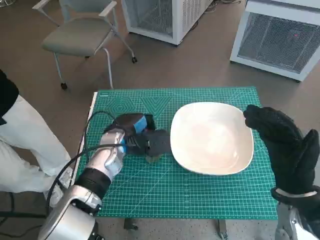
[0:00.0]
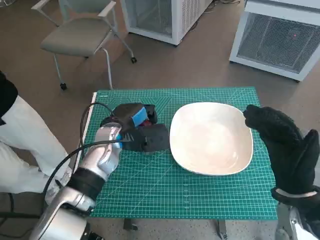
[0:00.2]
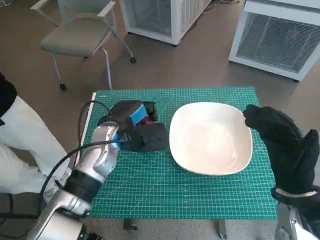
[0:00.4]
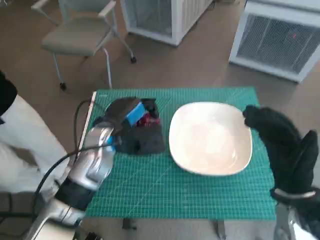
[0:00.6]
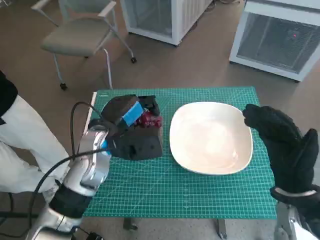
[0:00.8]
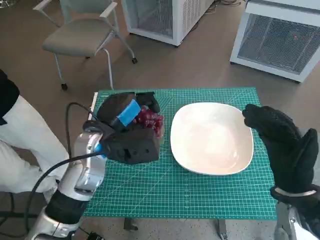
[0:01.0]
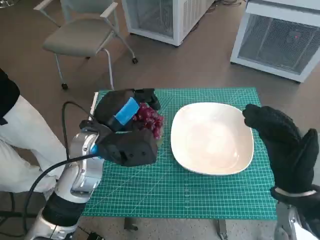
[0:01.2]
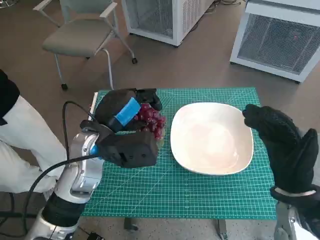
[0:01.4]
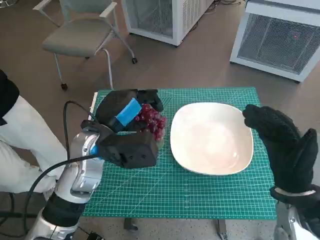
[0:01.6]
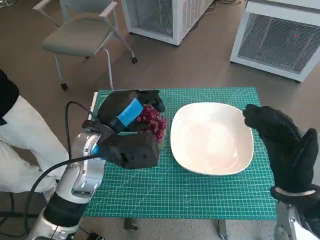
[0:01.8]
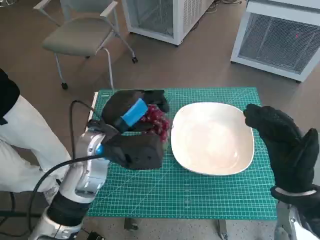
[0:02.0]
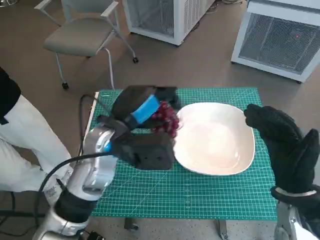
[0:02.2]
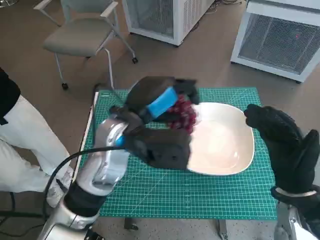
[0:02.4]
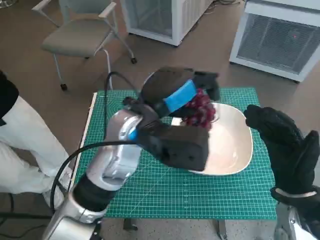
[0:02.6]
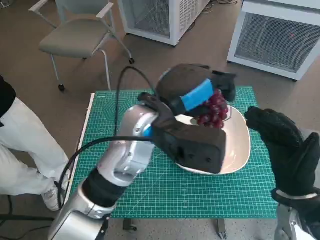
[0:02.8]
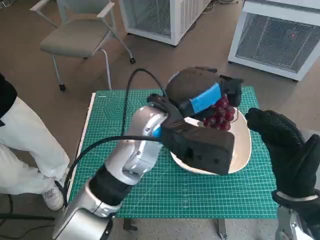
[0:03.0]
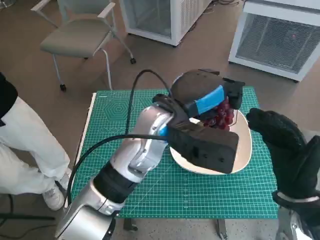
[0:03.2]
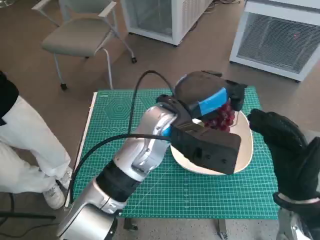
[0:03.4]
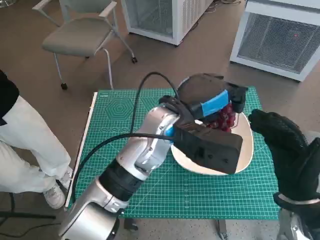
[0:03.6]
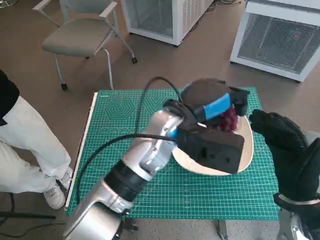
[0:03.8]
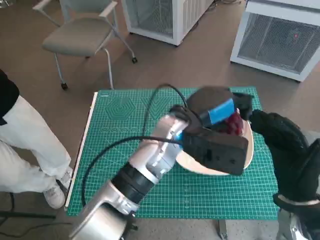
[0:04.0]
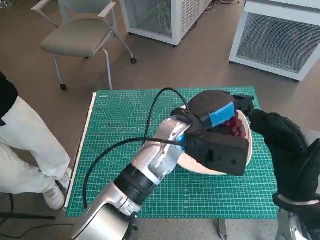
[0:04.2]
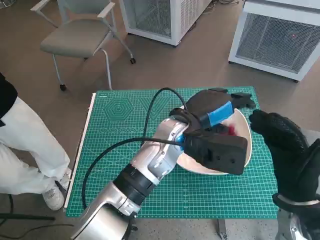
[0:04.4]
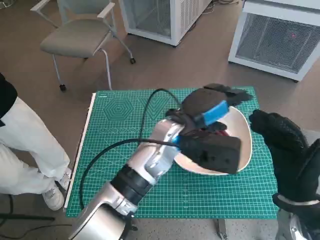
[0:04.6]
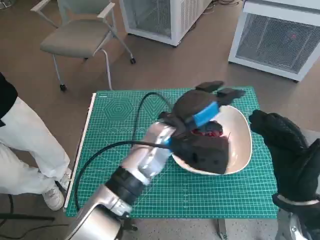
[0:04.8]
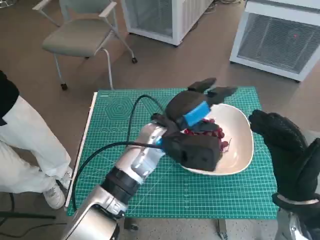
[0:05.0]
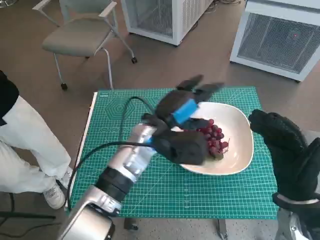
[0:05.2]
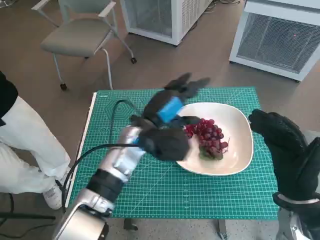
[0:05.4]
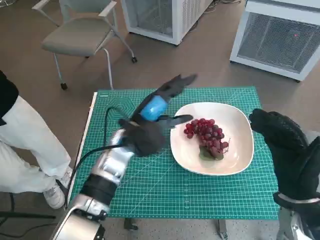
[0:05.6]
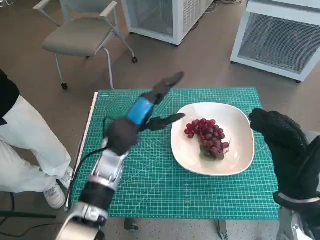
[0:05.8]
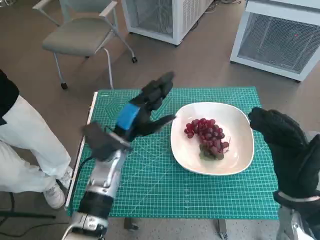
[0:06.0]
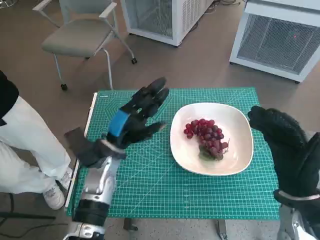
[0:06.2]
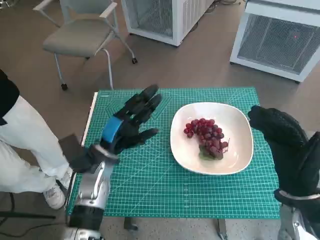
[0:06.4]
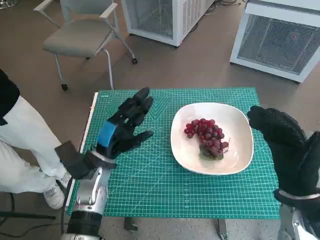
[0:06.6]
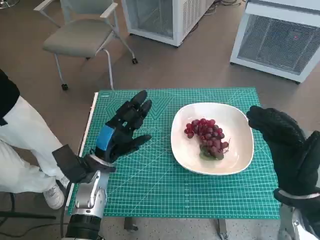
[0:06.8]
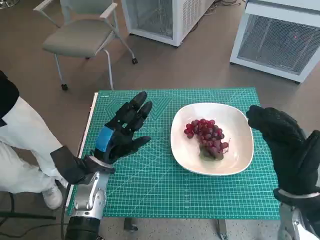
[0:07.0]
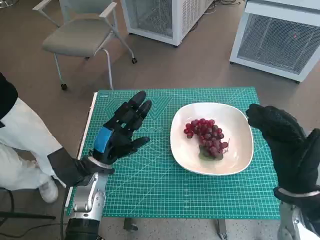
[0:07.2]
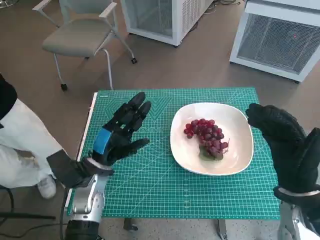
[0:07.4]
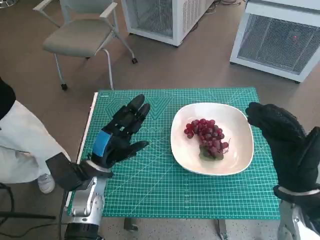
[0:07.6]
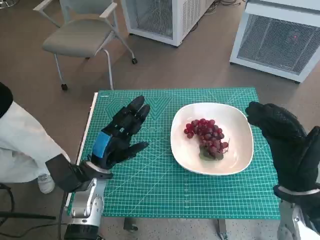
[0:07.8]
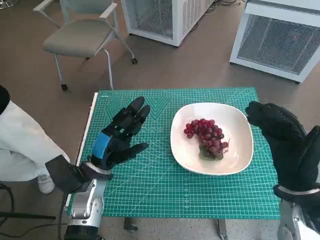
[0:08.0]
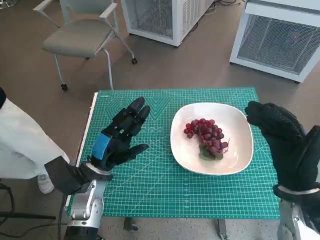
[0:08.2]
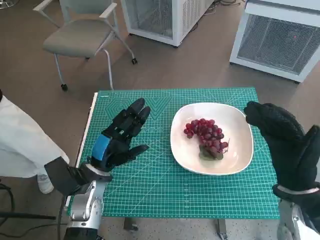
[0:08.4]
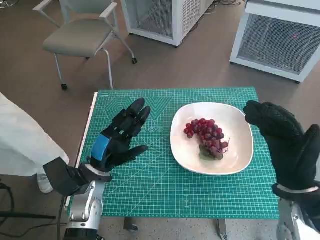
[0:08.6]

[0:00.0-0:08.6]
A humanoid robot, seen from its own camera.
Task of the whole recording: Pick up the grapes and put them on the plate.
Step, 0:00.0 to 0:04.6: Place the grapes in the plate with left hand.
0:00.0 to 0:01.4: The left hand moves upward and backward, roughly 10 cm.
0:01.4 to 0:02.8: The left hand travels to the right and upward by roughly 10 cm.
0:02.8 to 0:04.4: The left hand goes some 5 cm downward and to the right.
0:04.4 to 0:05.8: The left hand travels to the left and downward by some 15 cm.
0:05.8 to 0:07.2: The left hand shifts some 10 cm to the left and downward.
0:07.2 to 0:08.6: The hands stay close to where they were, moving slightly.

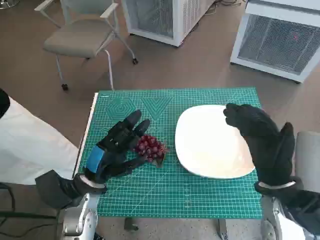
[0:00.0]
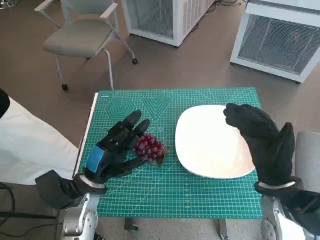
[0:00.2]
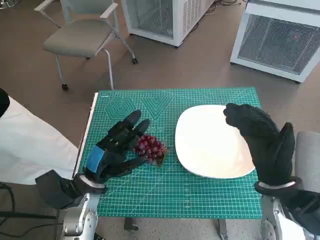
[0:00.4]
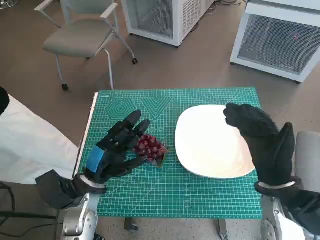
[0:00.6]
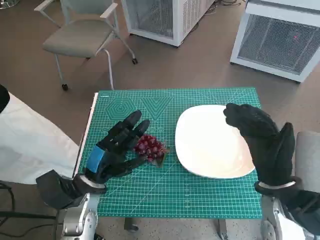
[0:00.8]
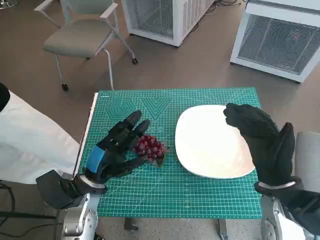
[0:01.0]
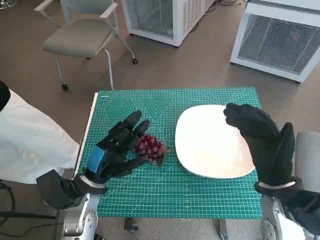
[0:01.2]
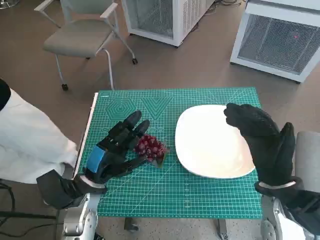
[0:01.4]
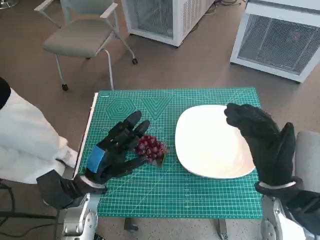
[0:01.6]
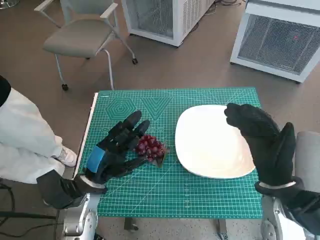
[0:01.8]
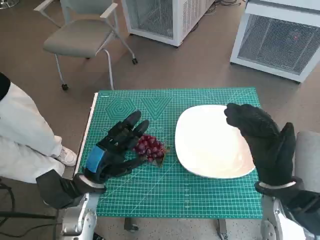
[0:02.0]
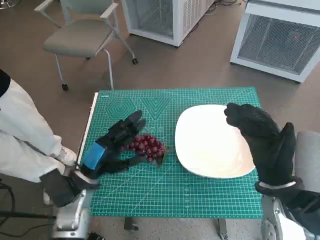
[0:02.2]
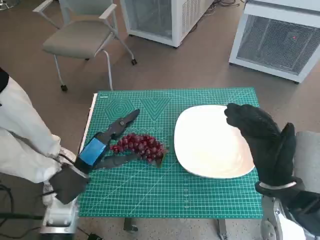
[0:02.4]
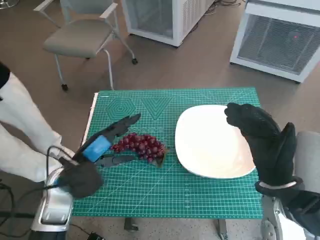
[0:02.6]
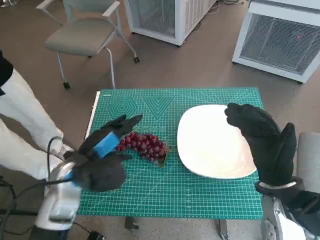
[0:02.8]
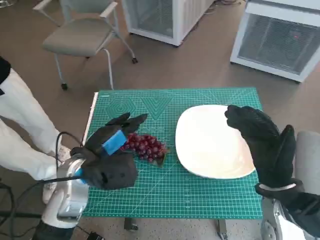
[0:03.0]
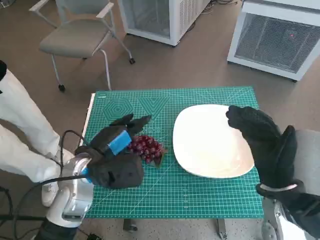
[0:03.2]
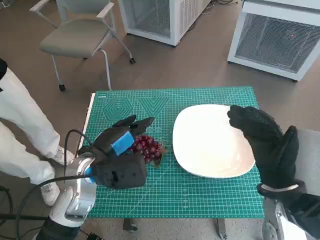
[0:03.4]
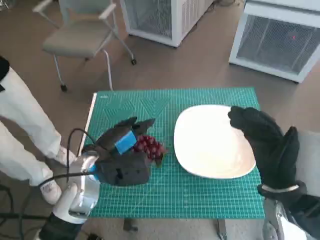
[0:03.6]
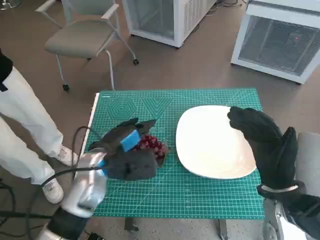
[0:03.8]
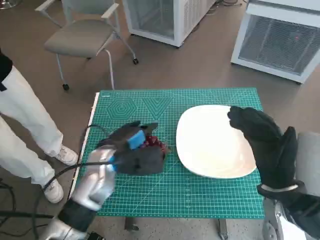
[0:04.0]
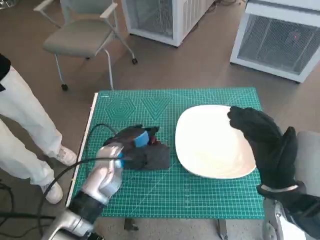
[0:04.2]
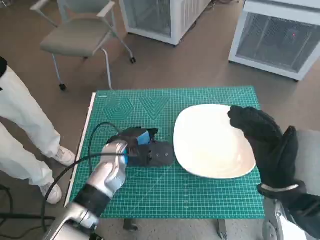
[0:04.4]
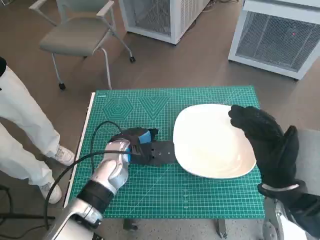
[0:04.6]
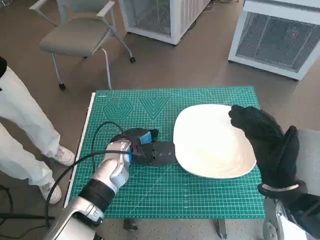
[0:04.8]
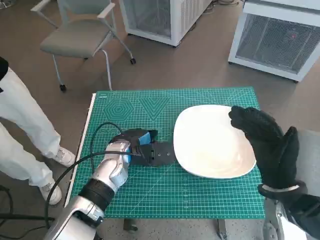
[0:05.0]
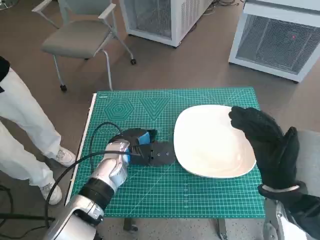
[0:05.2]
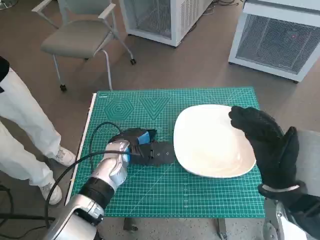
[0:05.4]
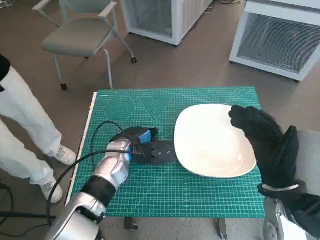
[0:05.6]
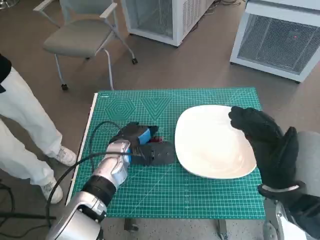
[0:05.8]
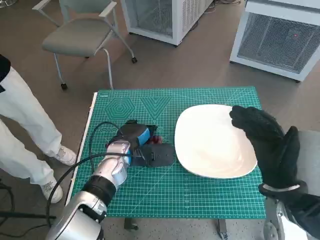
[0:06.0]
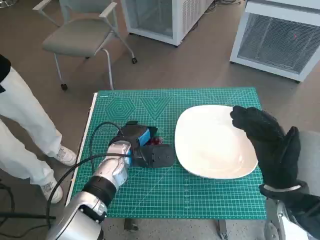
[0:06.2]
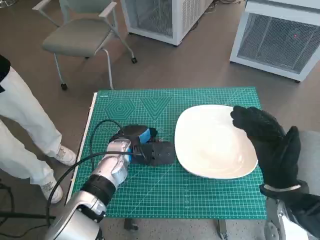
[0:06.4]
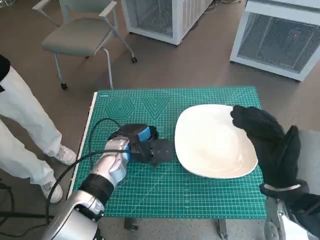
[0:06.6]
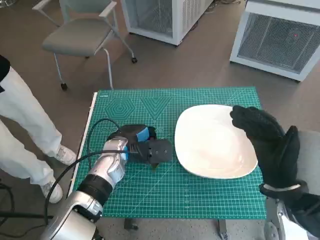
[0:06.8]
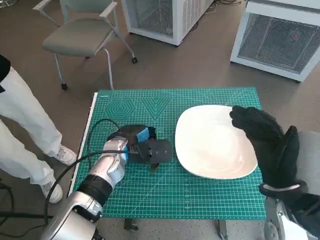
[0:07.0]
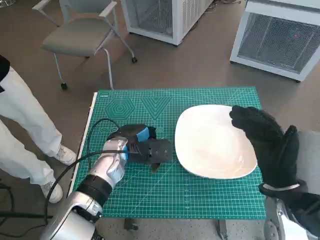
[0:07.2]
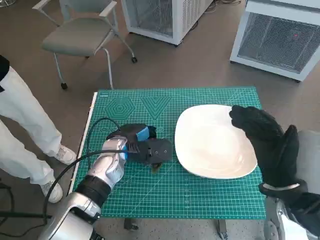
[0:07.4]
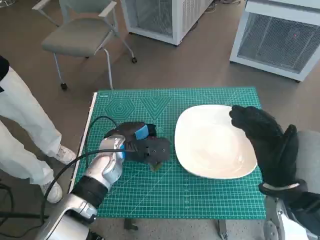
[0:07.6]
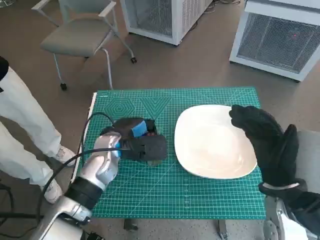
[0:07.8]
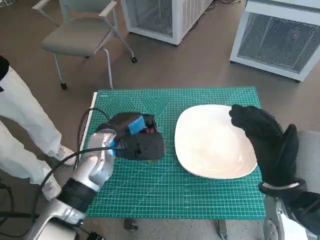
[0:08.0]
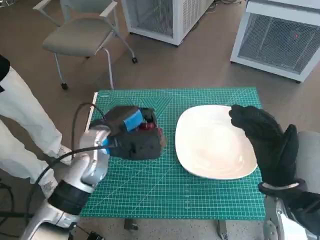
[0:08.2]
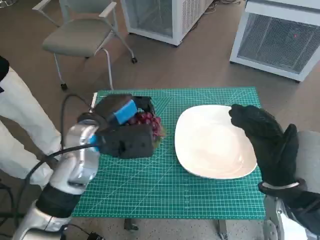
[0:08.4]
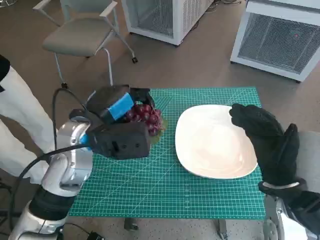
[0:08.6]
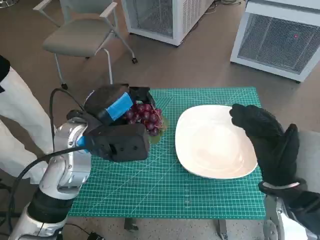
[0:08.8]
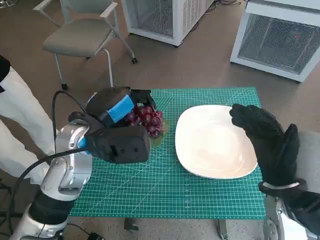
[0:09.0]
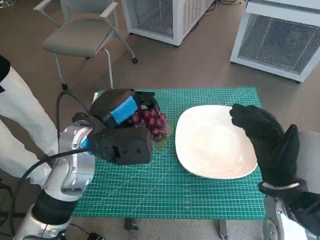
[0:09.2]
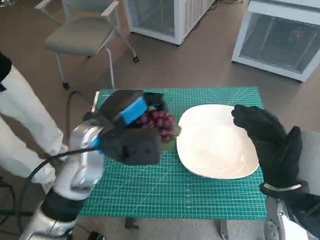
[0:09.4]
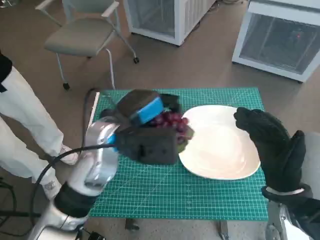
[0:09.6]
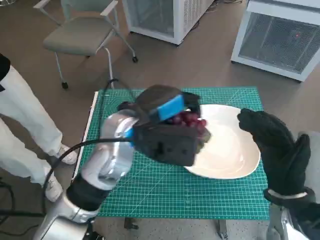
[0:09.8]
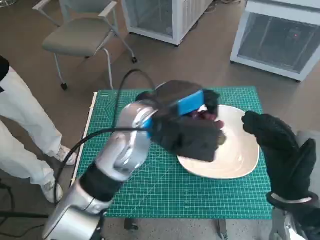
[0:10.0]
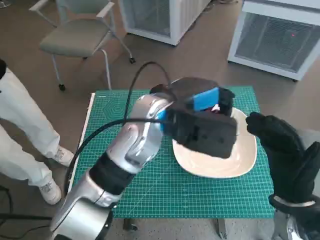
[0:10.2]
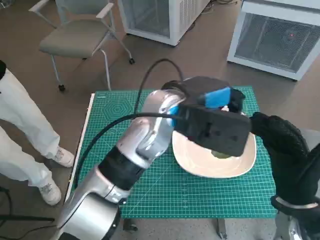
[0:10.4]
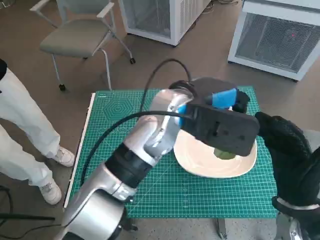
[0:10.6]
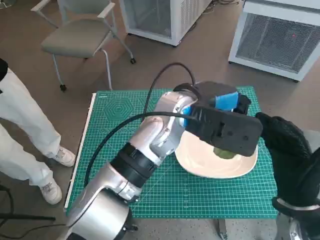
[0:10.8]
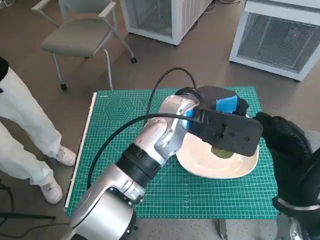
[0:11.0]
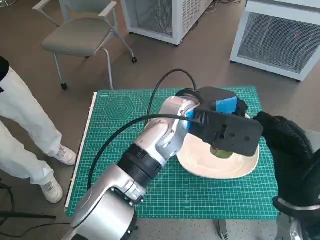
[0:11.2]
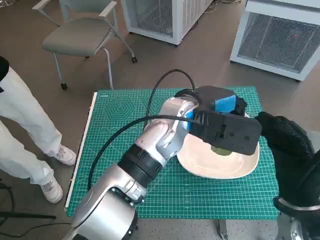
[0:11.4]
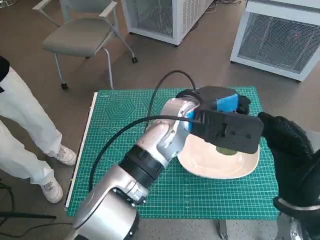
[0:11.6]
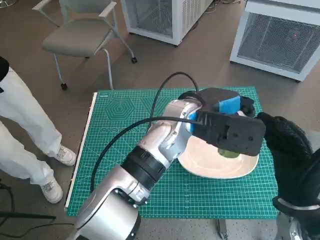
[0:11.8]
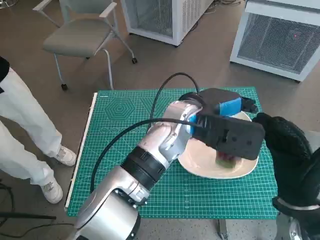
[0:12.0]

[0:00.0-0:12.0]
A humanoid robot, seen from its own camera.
Task of the whole recording: Pick up the grapes and put them on the plate.
Step, 0:00.0 to 0:05.8: Grasp the grapes with left hand.
0:01.6 to 0:03.0: The left hand shifts approximately 5 cm upward.
0:03.0 to 0:04.4: The left hand goes approximately 10 cm forward and to the right.
0:04.4 to 0:07.6: The hands make only small movements.
0:07.6 to 0:09.0: The left hand heads upward, covering about 10 cm.
0:09.0 to 0:10.4: The left hand goes some 15 cm to the right.

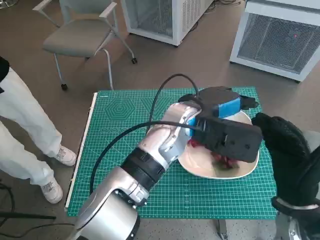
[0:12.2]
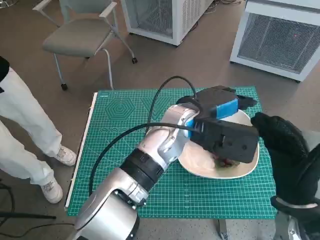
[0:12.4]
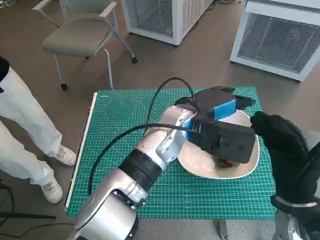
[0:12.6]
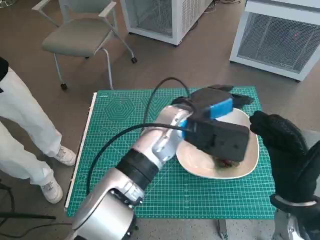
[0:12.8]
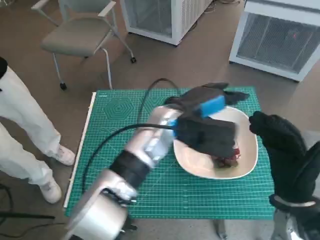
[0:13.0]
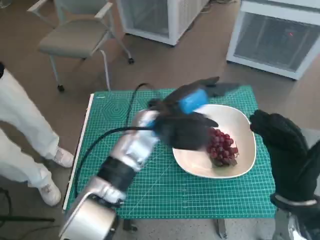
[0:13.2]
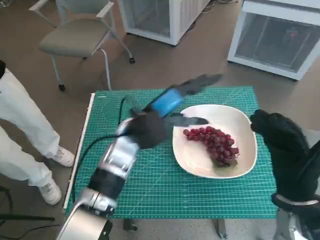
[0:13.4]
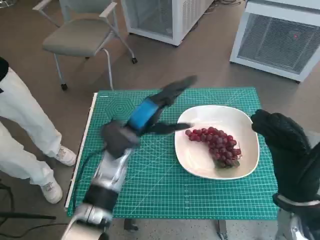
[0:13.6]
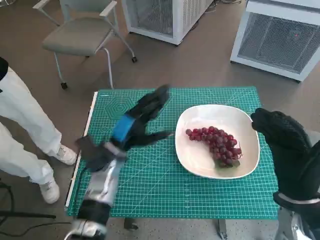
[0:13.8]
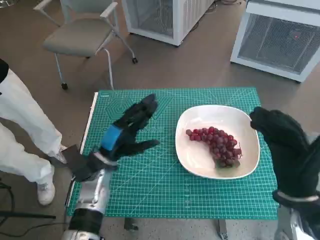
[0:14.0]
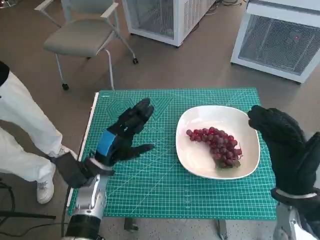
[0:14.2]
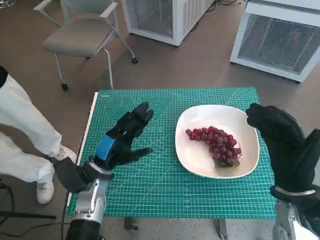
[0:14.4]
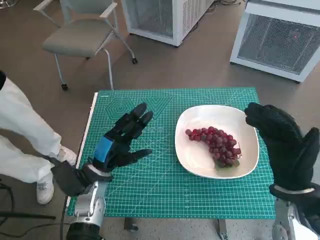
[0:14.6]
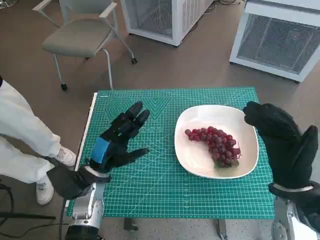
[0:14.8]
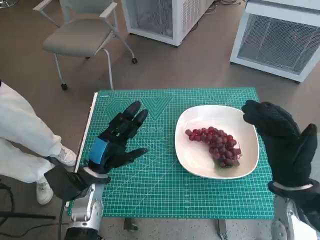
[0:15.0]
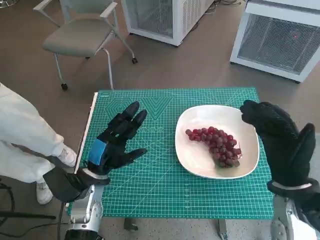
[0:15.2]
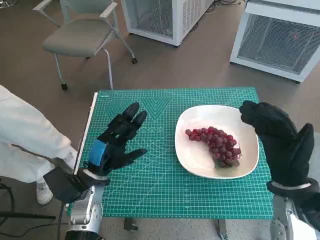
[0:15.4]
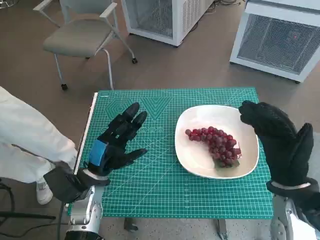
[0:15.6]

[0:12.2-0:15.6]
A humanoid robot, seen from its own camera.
Task of the whole recording: Pick up the grapes and put them on the plate.
0:12.2 to 0:13.8: The left hand shifts roughly 20 cm to the left and downward.
0:13.8 to 0:15.6: The left hand travels backward by some 5 cm.
